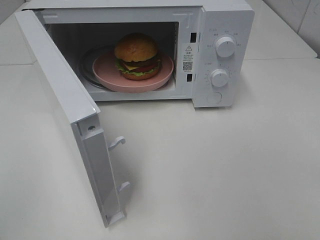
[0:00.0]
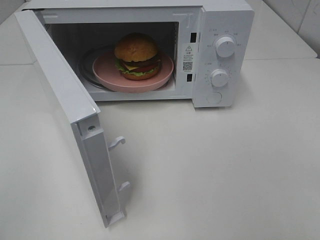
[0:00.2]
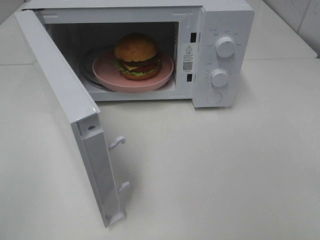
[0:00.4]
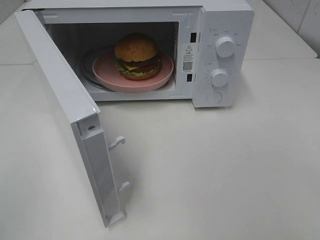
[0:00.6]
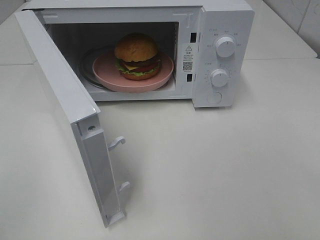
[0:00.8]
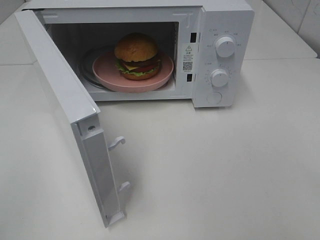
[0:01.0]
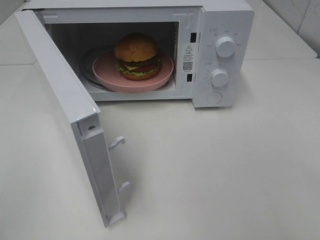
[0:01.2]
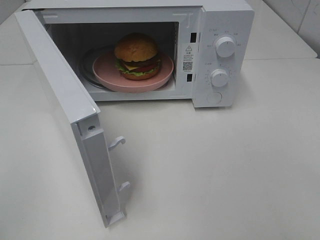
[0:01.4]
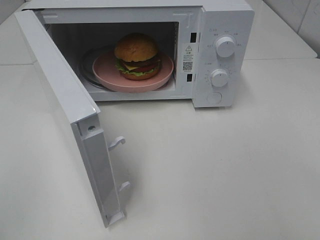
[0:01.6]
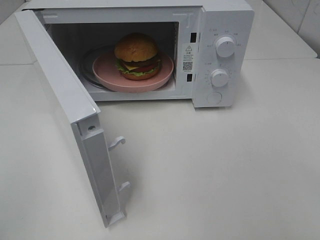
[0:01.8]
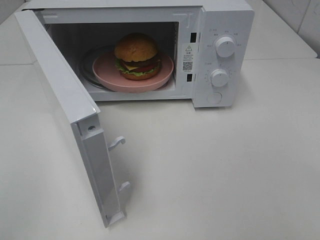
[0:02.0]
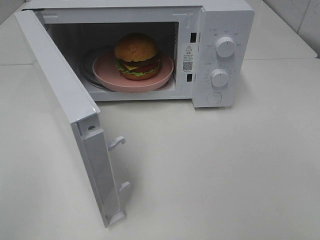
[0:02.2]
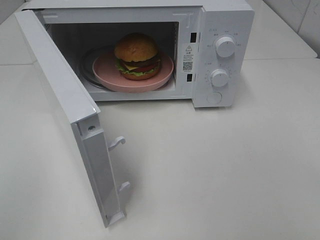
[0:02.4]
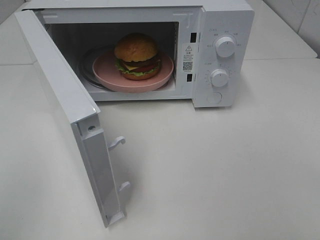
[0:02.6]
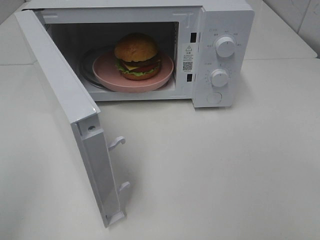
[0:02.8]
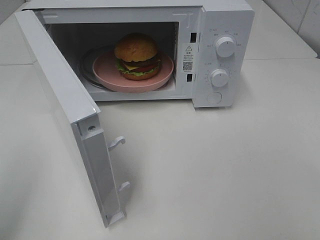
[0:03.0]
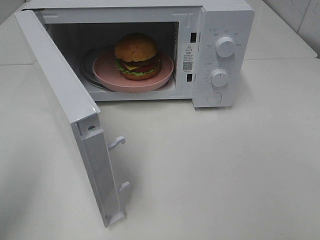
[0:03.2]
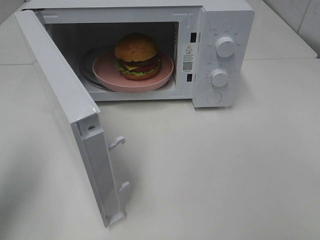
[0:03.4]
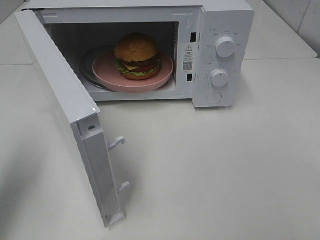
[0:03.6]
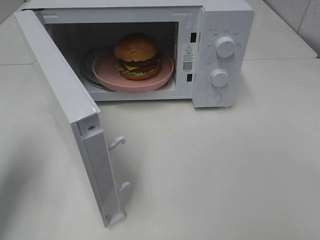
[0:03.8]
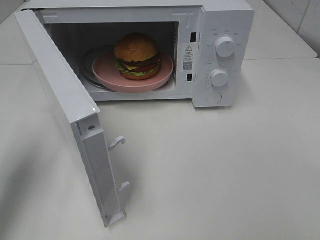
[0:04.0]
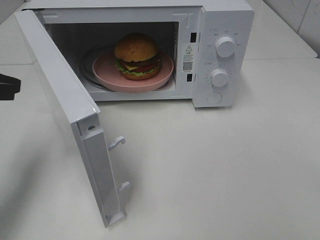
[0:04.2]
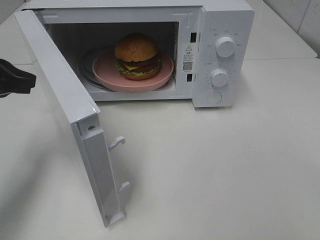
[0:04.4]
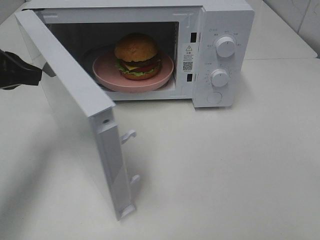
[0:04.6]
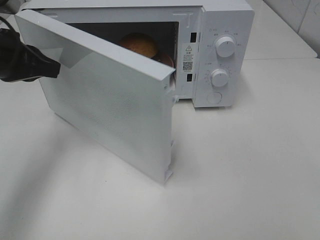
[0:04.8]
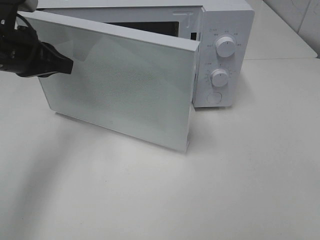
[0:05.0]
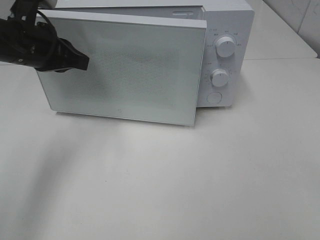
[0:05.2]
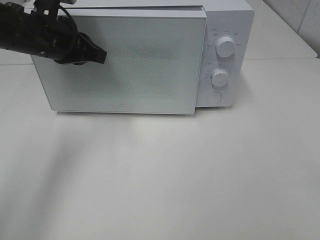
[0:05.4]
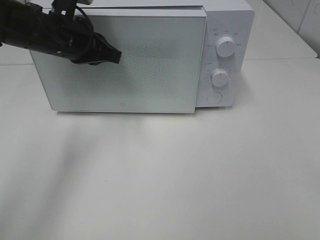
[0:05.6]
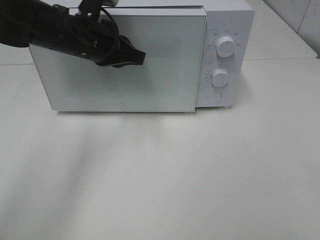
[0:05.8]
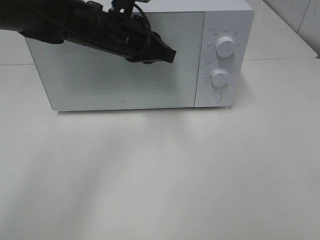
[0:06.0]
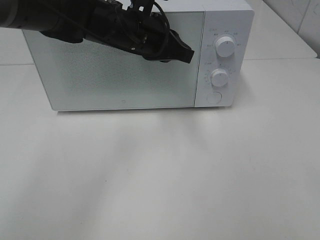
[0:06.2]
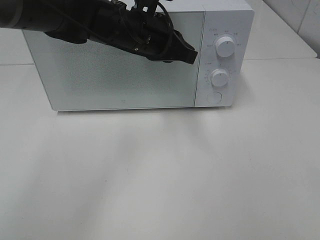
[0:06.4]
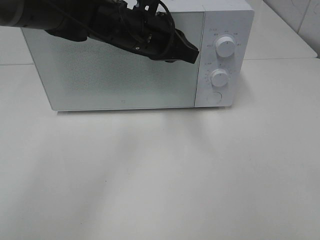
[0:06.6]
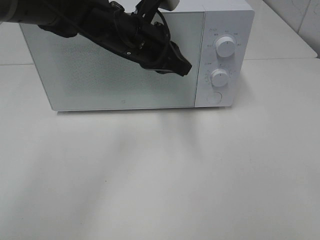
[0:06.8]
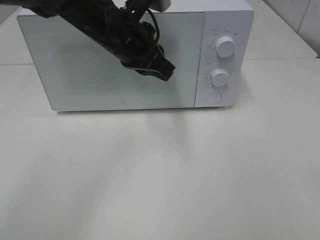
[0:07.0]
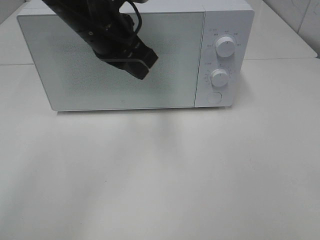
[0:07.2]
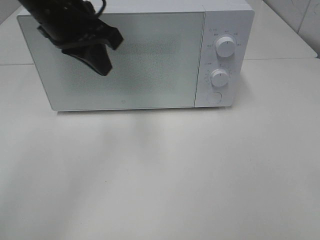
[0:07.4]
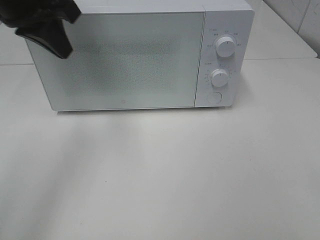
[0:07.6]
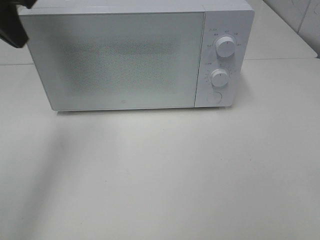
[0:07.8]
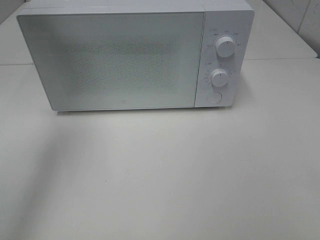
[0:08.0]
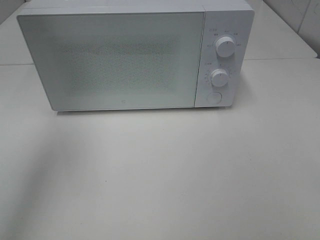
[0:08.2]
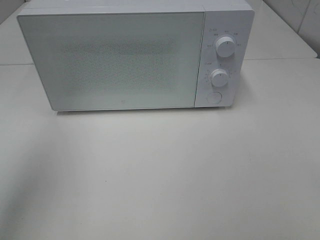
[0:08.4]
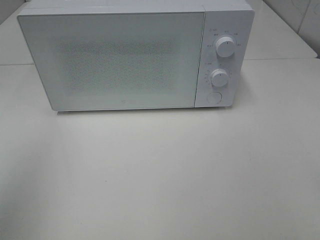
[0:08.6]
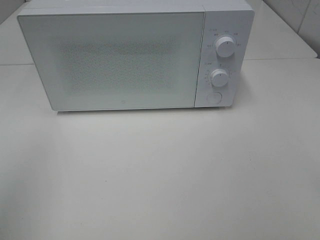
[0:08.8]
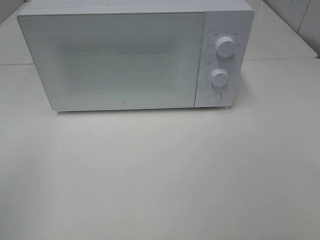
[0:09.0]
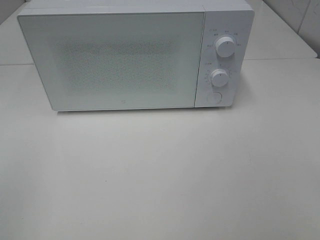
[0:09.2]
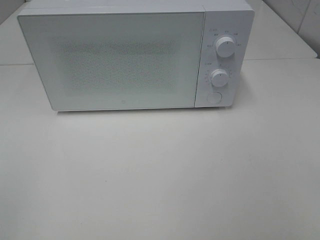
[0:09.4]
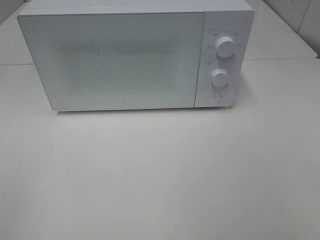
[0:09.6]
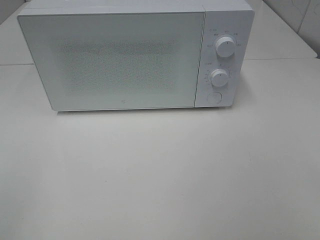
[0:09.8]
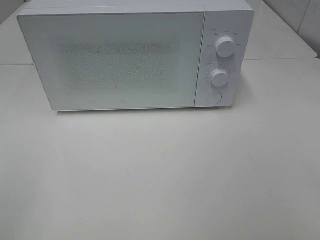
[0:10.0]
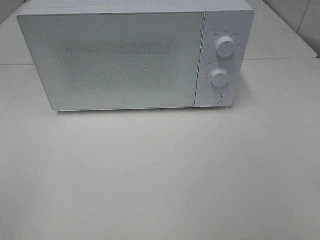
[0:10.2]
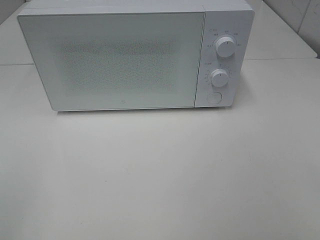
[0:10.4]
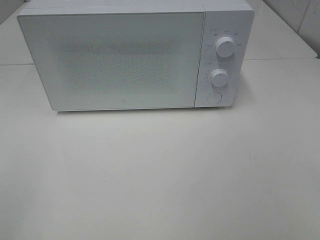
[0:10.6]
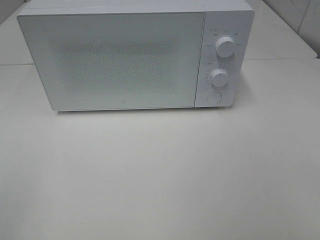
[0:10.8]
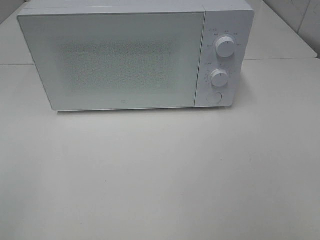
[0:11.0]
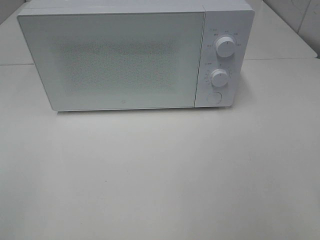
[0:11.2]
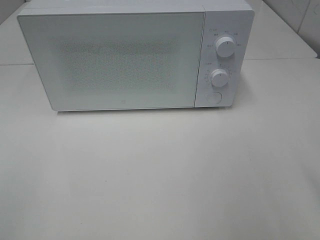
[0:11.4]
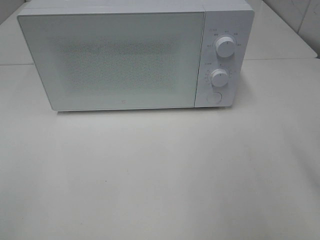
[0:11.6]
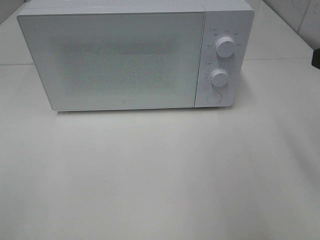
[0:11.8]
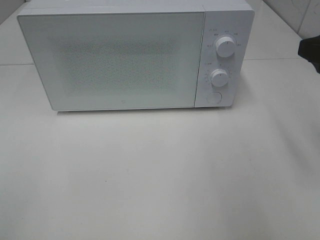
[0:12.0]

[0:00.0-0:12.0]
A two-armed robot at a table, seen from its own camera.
Task of the whole recording: Heat the burger.
Step, 0:00.0 to 0:06.2: Left hand: close the microwave door.
0:03.0 to 0:04.4: The left gripper is displaced forward by about 20 cm.
0:04.4 to 0:06.0: The left gripper heads to the right and forward, covering some 20 cm.
0:06.0 to 0:07.6: The left gripper is displaced to the left, upward and backward by some 15 cm.
0:07.6 to 0:09.0: The left gripper heads backward and to the left, covering about 30 cm.
0:10.4 to 0:12.0: The right gripper goes some 20 cm forward.

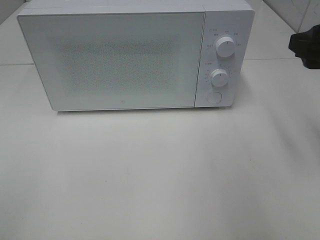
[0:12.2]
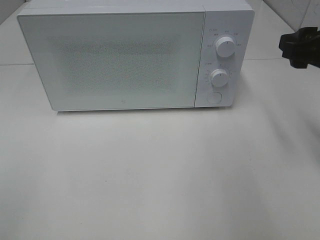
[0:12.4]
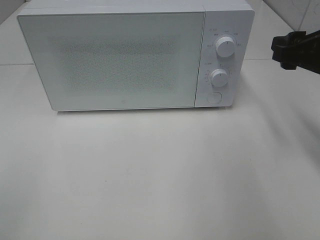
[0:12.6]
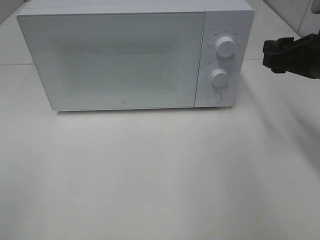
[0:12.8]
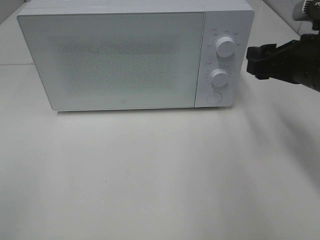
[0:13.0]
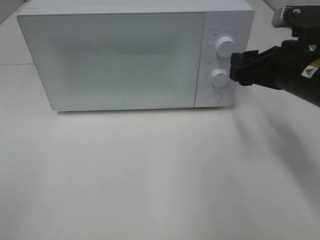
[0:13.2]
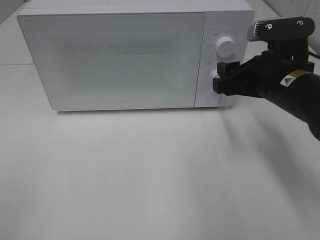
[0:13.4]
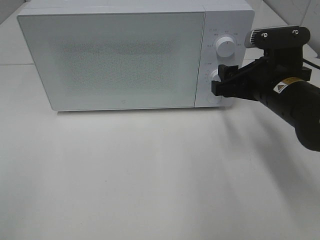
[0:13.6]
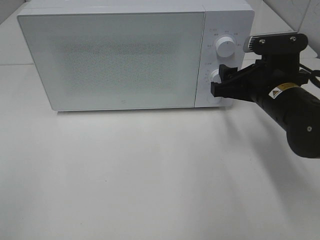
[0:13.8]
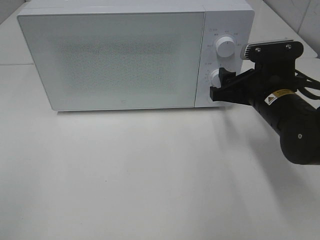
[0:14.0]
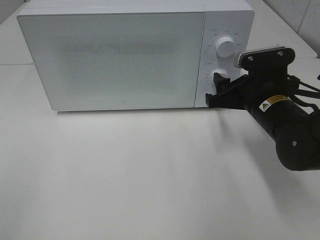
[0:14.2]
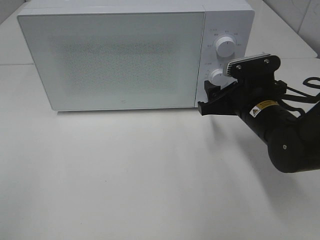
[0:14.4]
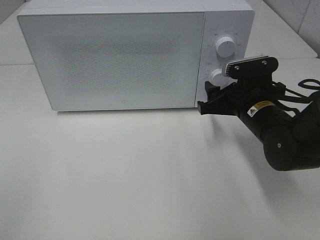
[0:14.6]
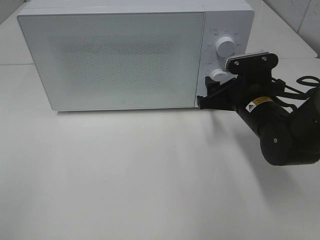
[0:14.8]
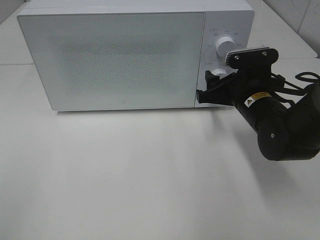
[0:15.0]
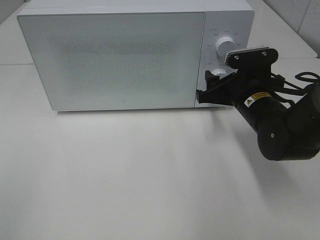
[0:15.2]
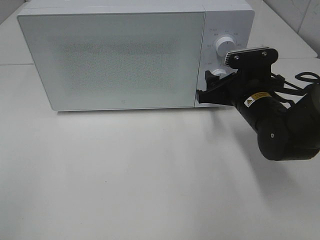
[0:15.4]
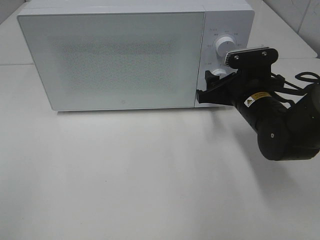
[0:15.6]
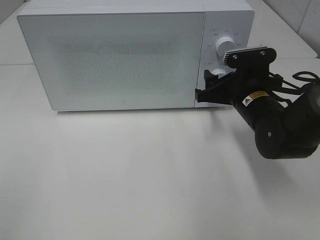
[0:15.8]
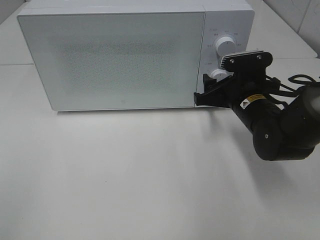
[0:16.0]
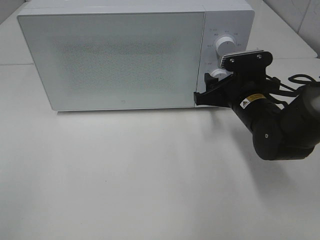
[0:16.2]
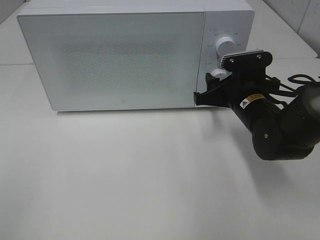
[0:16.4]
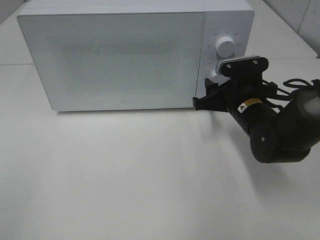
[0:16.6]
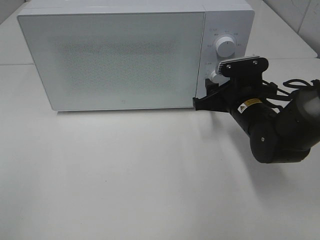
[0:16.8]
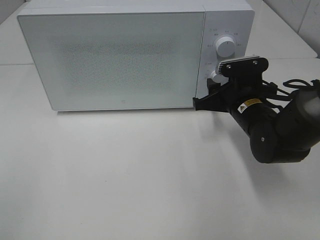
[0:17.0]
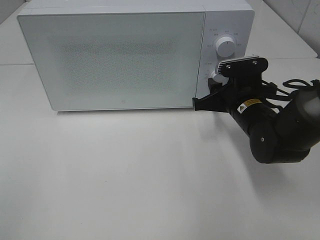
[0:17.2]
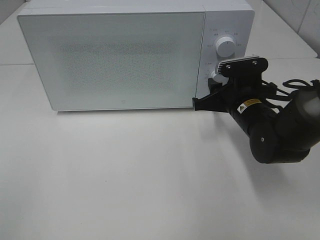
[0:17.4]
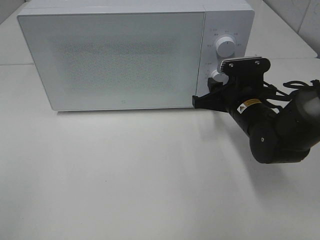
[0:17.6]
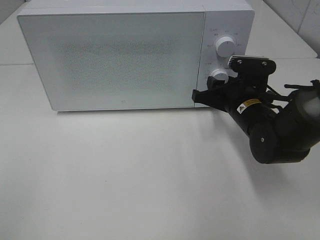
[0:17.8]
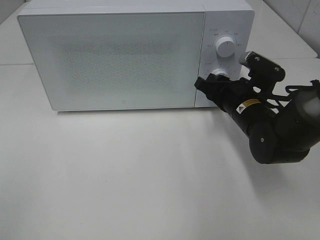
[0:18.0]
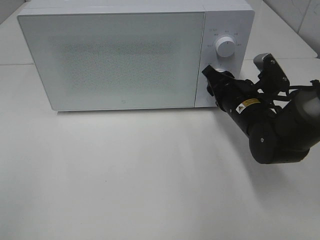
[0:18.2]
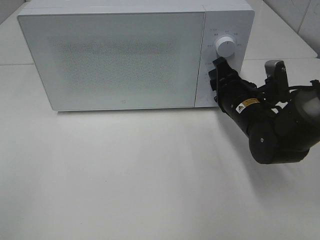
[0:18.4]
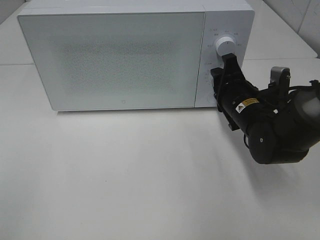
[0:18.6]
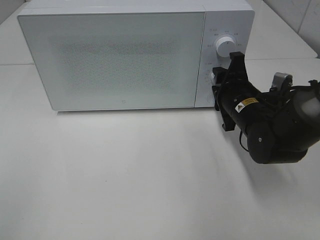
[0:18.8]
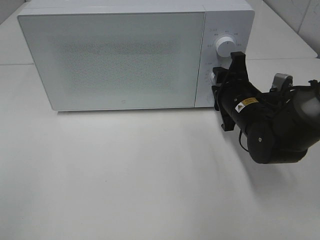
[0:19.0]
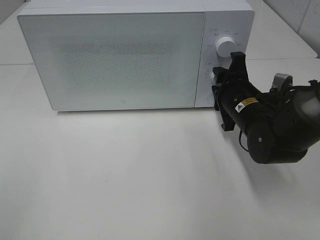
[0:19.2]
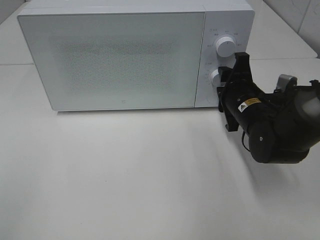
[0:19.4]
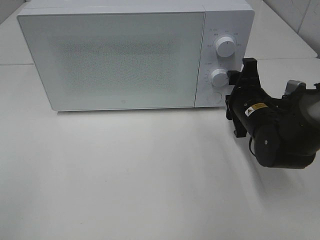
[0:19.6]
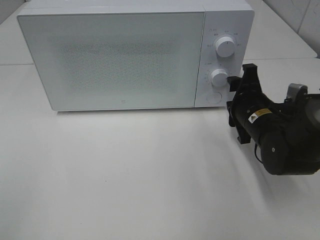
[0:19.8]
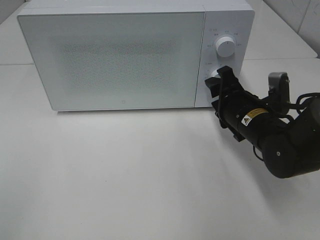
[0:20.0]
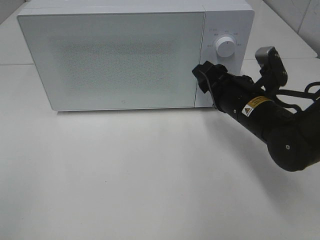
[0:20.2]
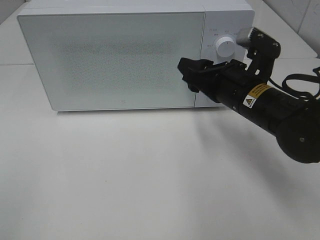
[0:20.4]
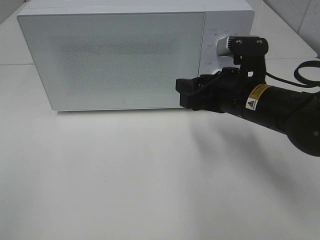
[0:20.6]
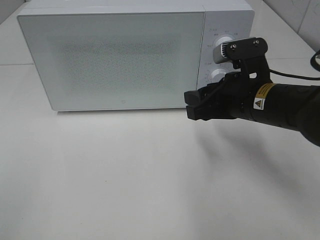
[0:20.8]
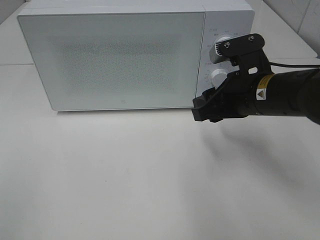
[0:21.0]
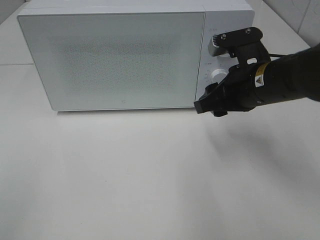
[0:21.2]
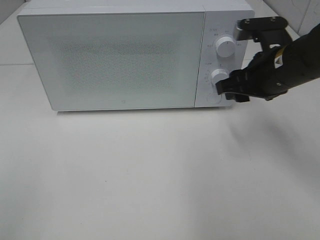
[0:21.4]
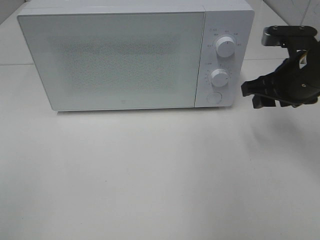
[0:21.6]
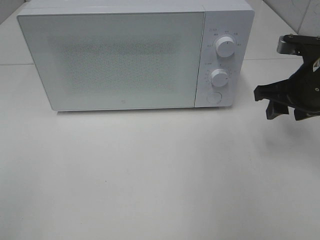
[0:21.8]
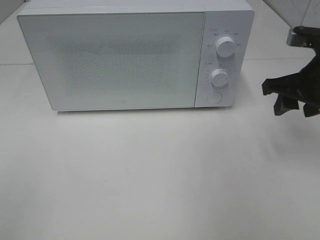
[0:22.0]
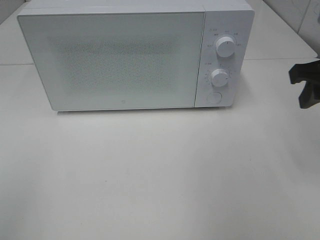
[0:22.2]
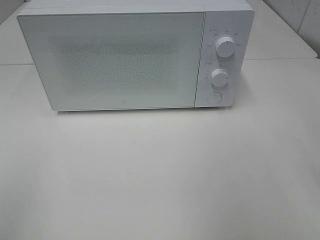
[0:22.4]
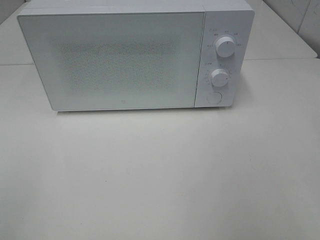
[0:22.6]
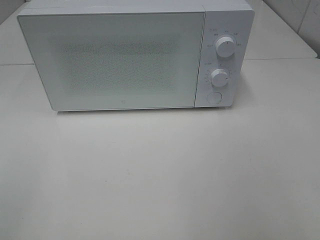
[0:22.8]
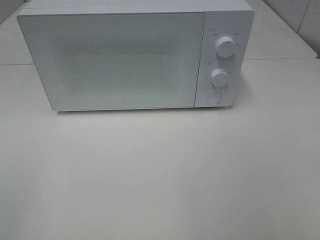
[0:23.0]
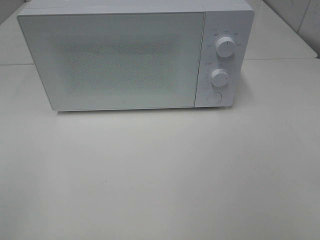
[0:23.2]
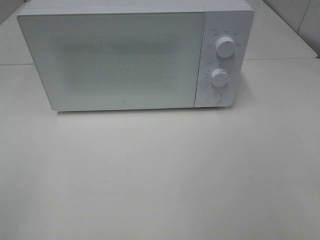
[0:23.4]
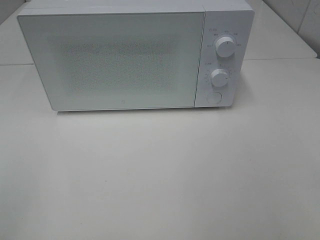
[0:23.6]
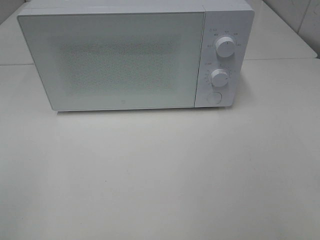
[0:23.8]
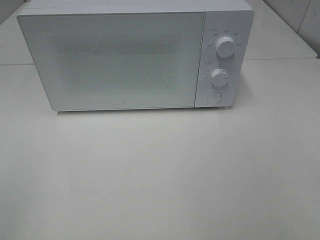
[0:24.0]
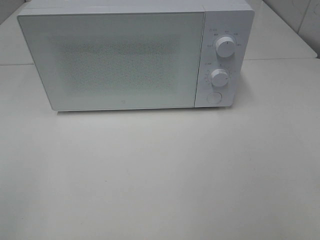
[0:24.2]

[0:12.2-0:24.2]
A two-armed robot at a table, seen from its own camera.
Task of the whole recording: Heat the burger.
Step, 0:12.2 to 0:19.4: Right hand: twist timer button.
0:12.2 to 0:13.8: The right gripper moves downward, to the left and forward, about 15 cm.
0:13.8 to 0:15.2: The right gripper changes place by roughly 5 cm.
0:15.2 to 0:16.6: There are only small adjustments of the grippers.
0:19.8 to 0:21.2: The right gripper shifts some 10 cm upward.
0:21.2 to 0:22.6: The right gripper goes approximately 25 cm backward, to the right and upward.
